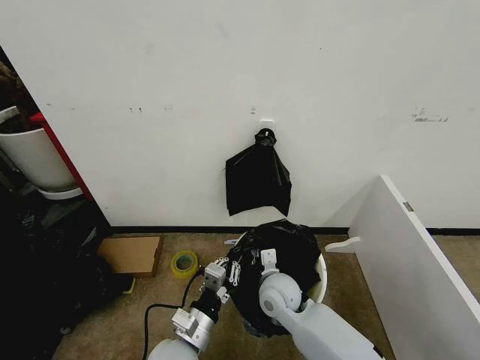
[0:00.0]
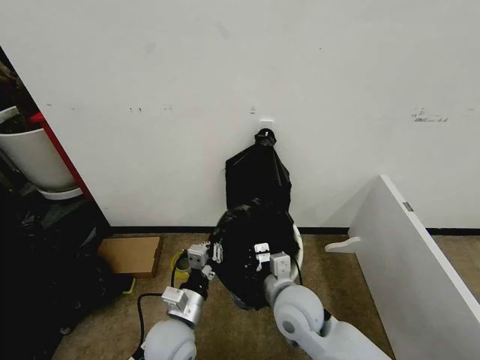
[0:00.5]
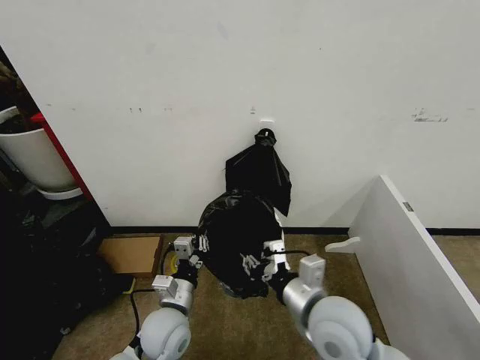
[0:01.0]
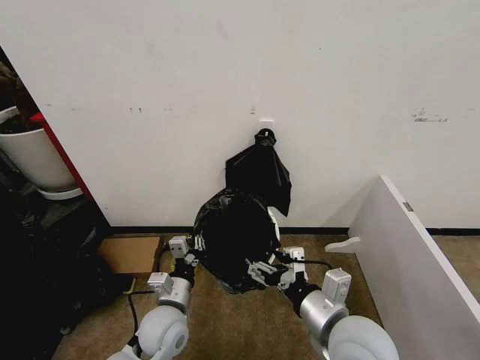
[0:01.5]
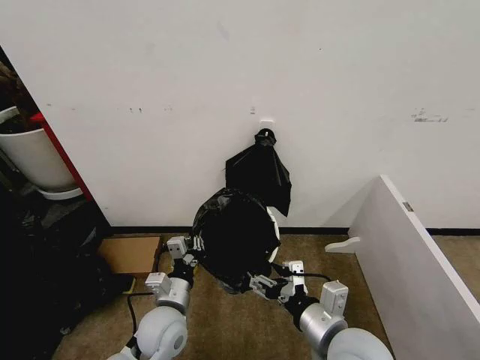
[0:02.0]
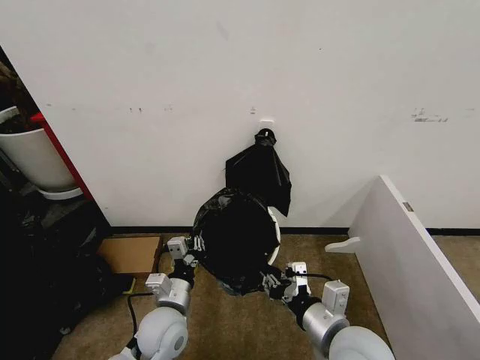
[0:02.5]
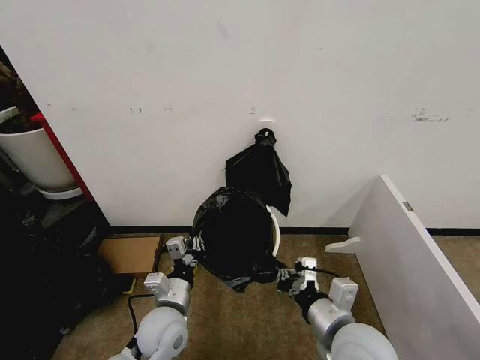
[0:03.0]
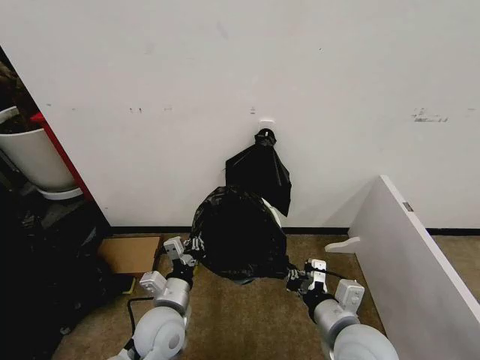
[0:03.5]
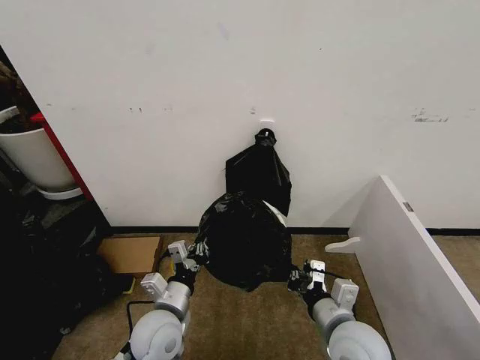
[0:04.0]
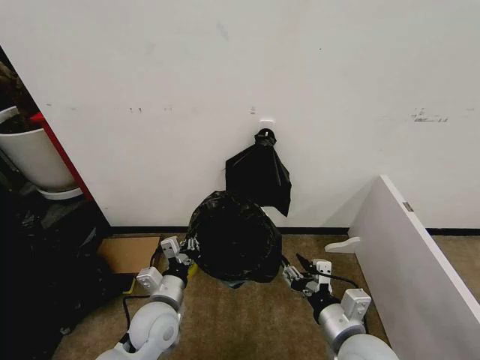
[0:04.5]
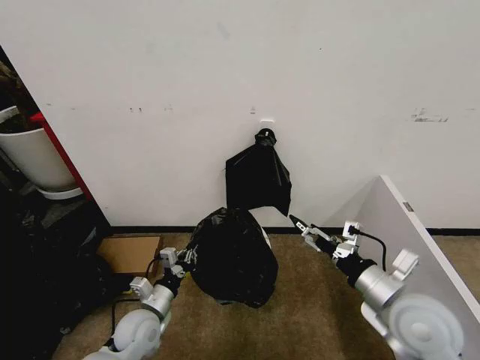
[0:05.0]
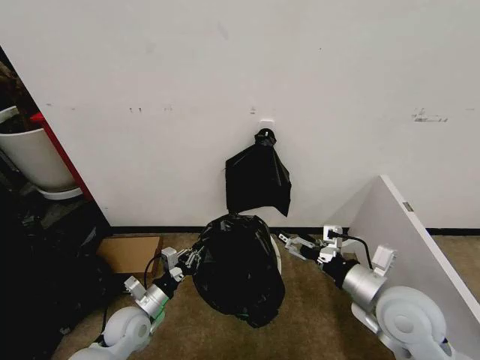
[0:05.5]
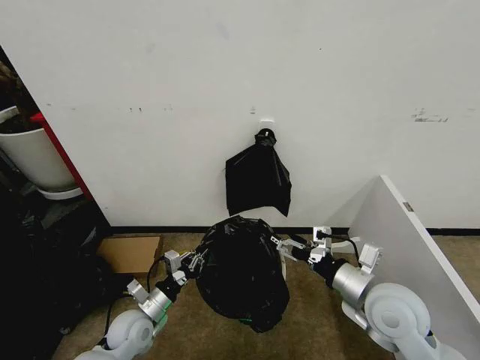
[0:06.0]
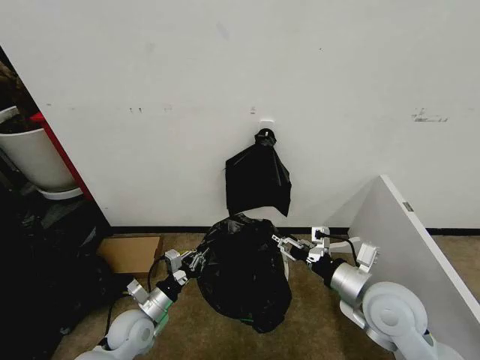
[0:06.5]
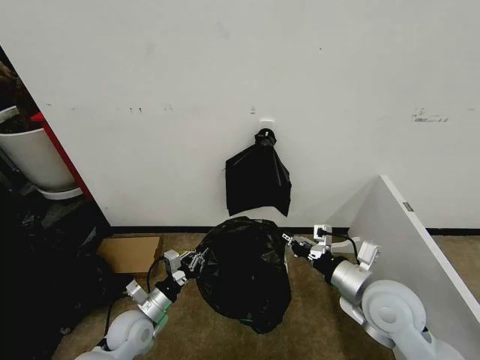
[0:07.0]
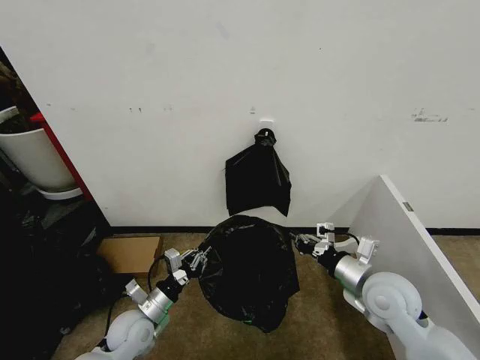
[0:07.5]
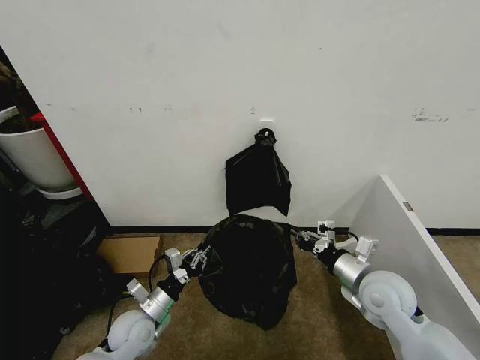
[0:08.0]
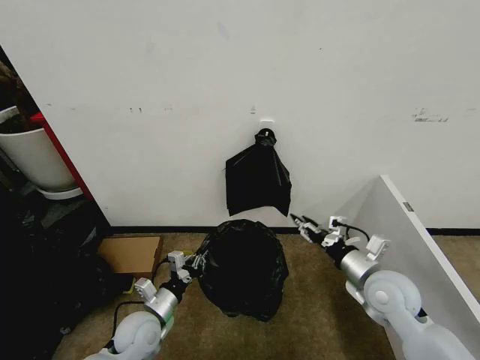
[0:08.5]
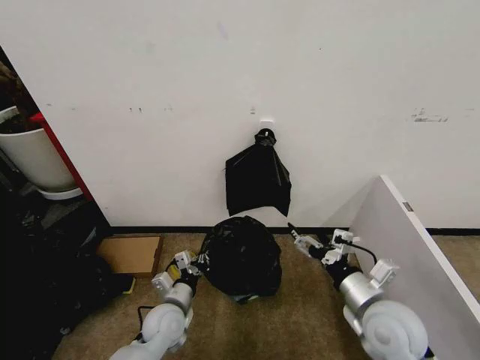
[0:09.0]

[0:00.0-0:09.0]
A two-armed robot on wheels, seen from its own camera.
Task of the whole recording: Place the garbage bag over the trash bin.
0:00.0 to 0:02.0: The left gripper goes roughly 5 cm forward; the right gripper heads backward, upward and to the right, covering some 20 cm, and opens.
0:02.0 to 0:04.5: The right gripper moves approximately 5 cm, and closes and opens again.
0:04.5 to 0:07.0: The right gripper goes some 10 cm forward and to the right, and closes its fingers. The left gripper is displaced to the left and downward by roughly 10 cm.
0:07.0 to 0:09.0: The left gripper shifts some 10 cm to the right; the right gripper opens its fingers.

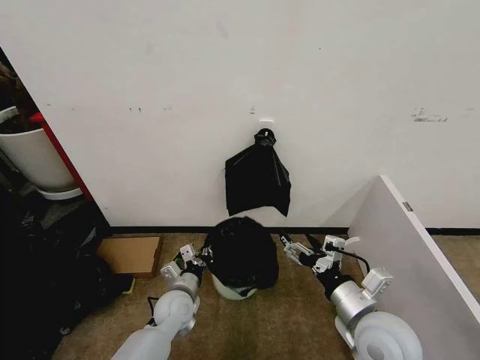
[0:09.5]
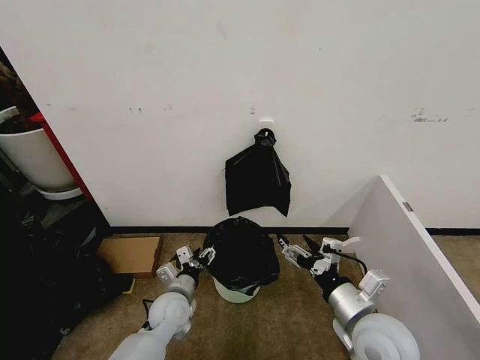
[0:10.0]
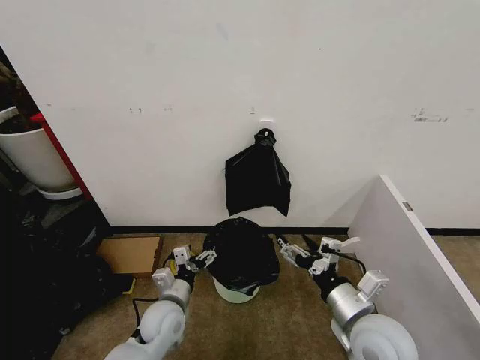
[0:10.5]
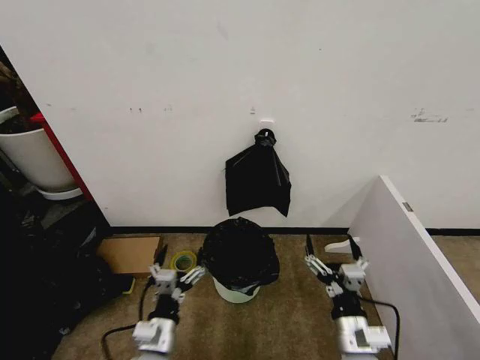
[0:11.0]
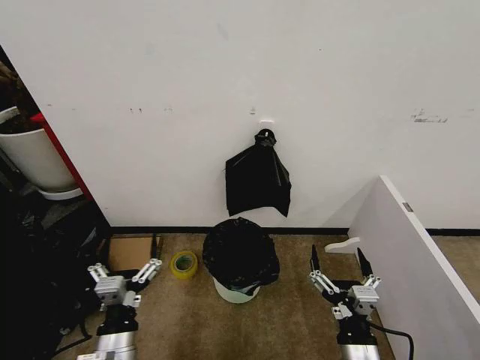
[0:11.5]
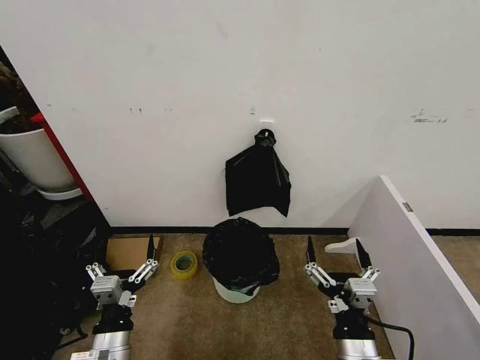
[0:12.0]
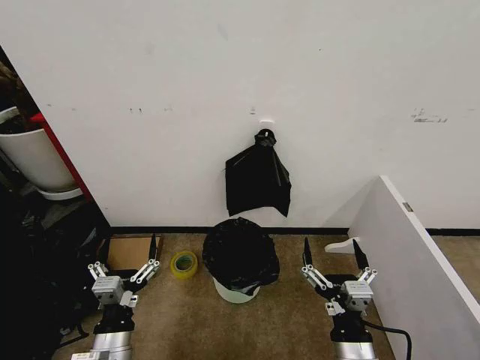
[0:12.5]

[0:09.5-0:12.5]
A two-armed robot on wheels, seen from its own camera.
Task of the whole recording: Place the garbage bag over the trash bin.
0:09.5 to 0:11.0: The right gripper goes about 10 cm downward, while the left gripper goes some 15 cm backward, and opens up.
0:11.0 to 0:12.5: The right gripper ends up some 5 cm from where it was. Meanwhile the left gripper goes about 5 cm to the left and upward.

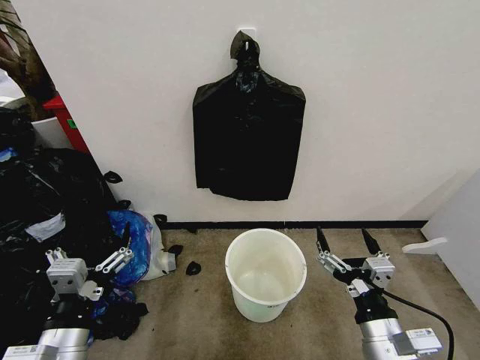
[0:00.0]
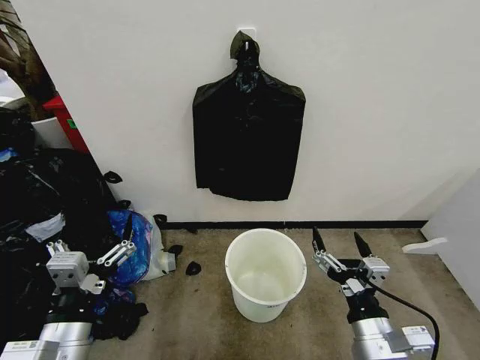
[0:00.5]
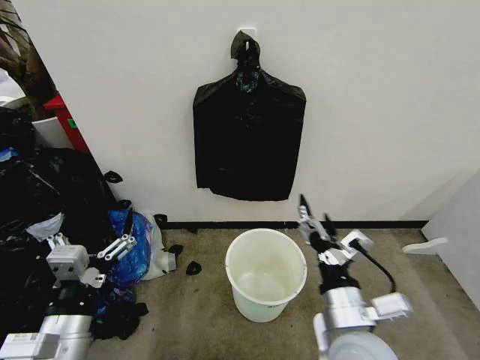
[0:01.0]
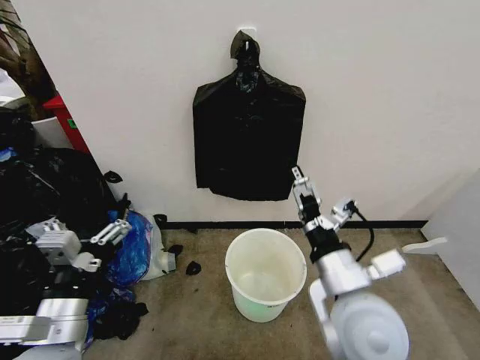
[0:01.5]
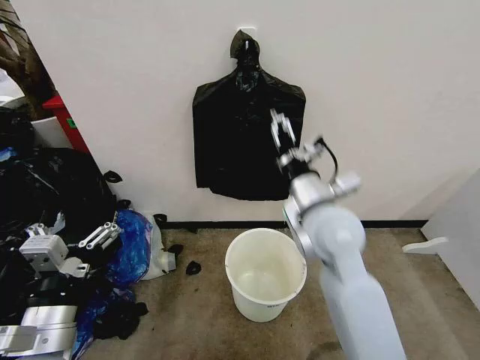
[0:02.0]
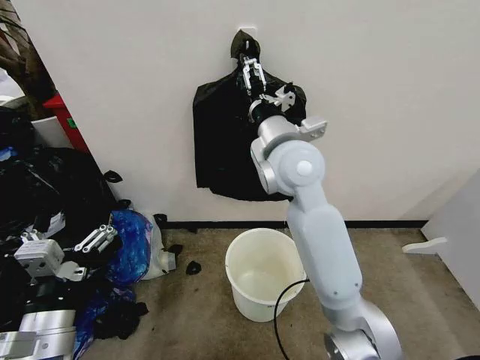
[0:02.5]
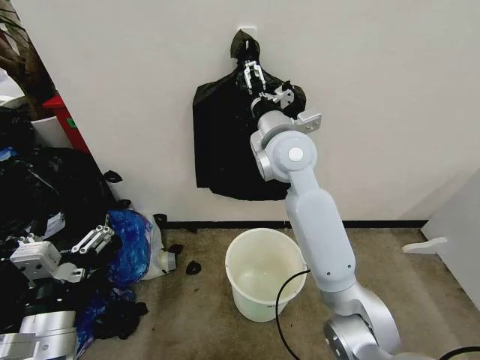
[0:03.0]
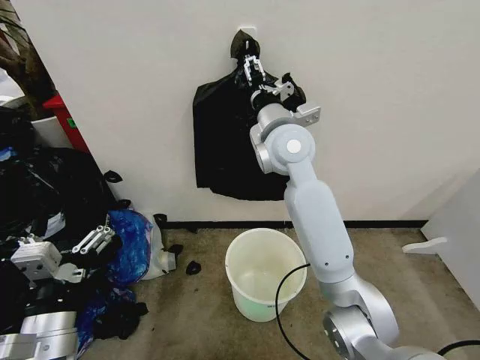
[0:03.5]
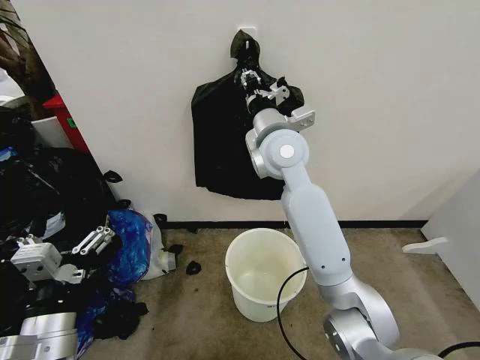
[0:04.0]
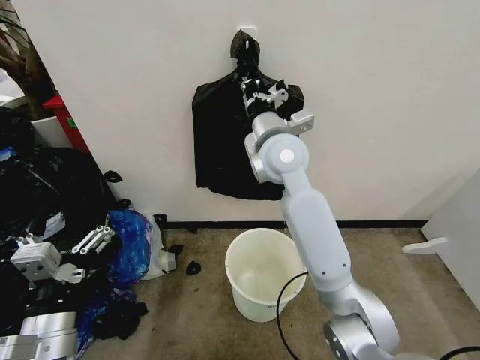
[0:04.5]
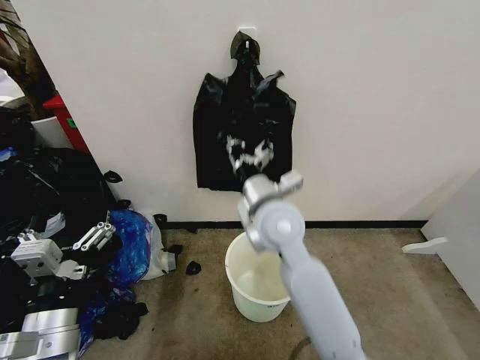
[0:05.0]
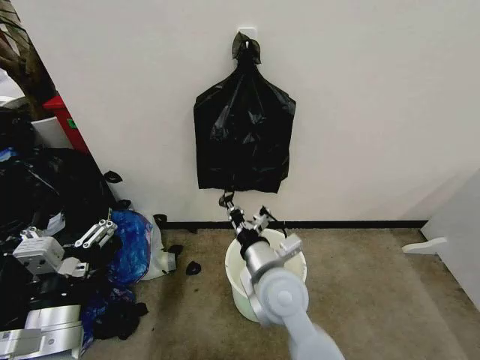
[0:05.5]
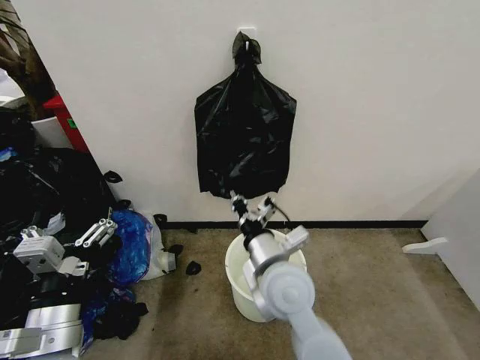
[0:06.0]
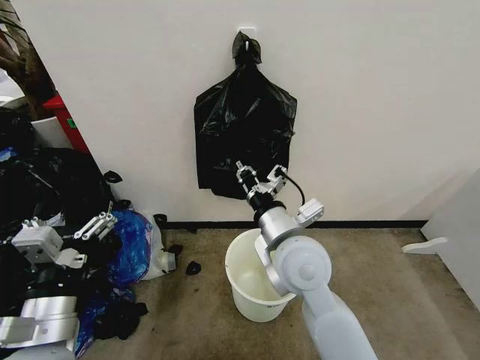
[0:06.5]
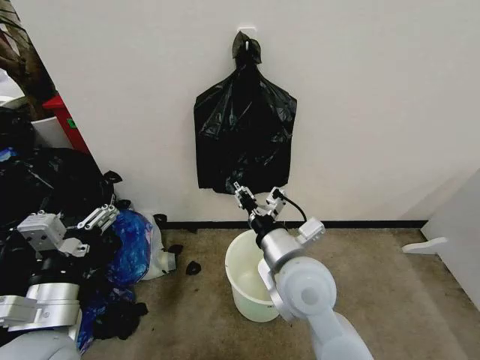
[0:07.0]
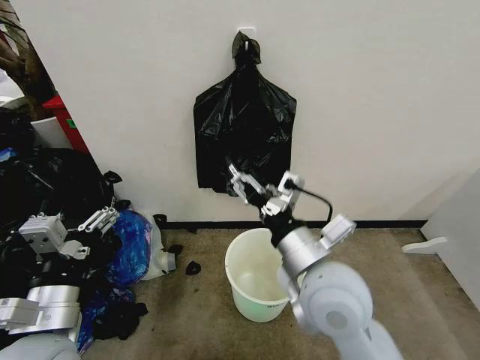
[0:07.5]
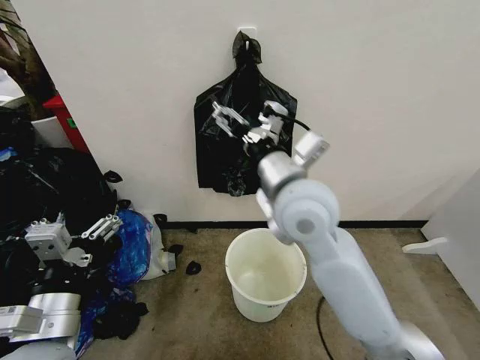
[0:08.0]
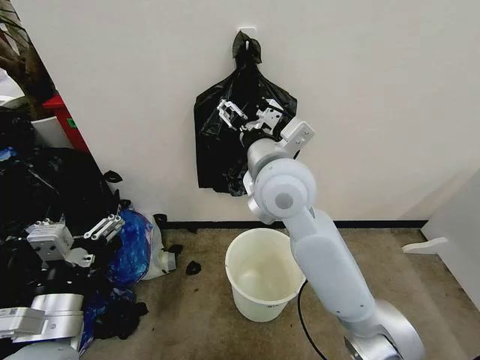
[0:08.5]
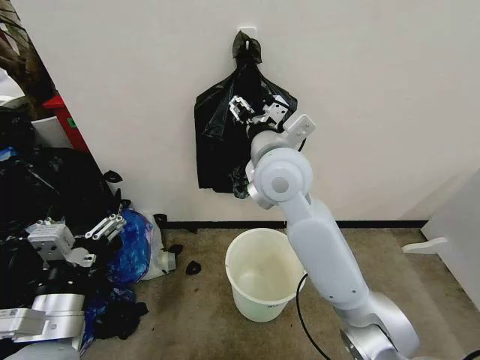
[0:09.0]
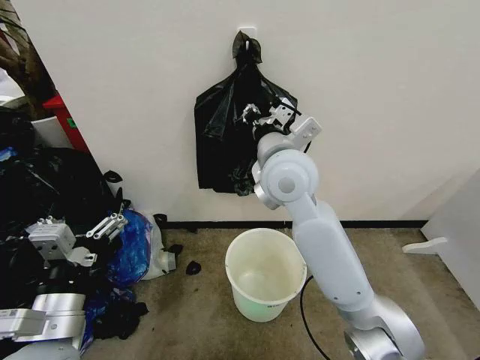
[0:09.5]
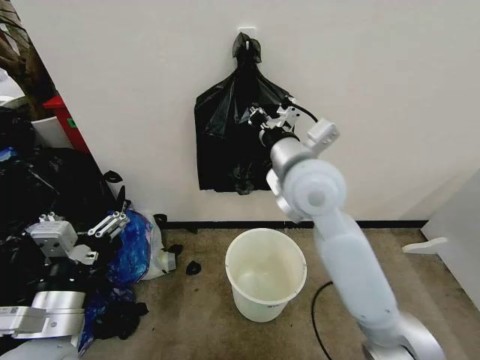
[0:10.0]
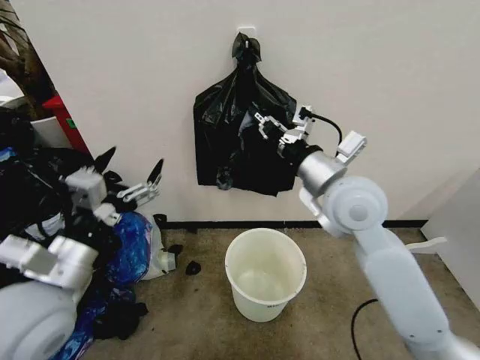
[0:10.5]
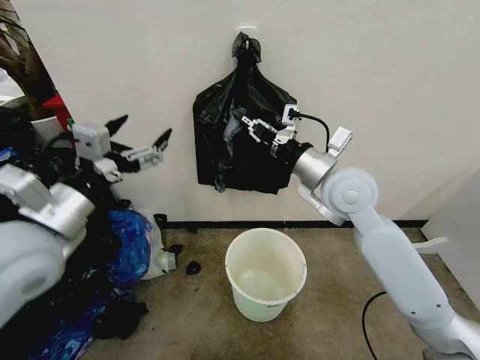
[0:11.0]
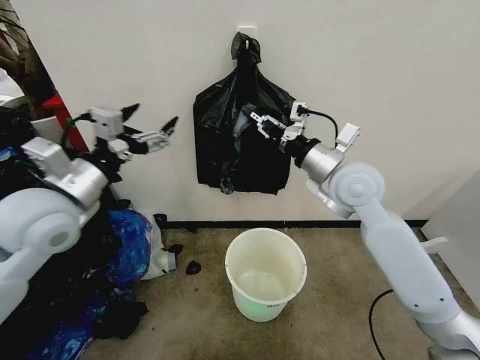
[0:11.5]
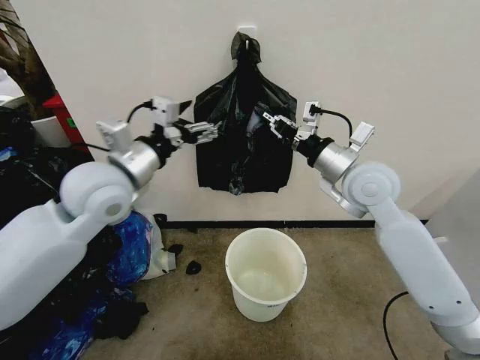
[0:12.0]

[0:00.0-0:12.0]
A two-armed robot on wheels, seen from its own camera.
Task of the whole recording: Place the garbage bag over the trash bin.
0:02.0 to 0:04.0: The right gripper goes approximately 15 cm forward and to the left, and closes its fingers.
0:04.0 to 0:06.0: The right gripper shifts approximately 25 cm backward and downward.
0:06.0 to 0:08.0: The right gripper moves upward and forward, some 15 cm, and opens.
0:08.0 to 0:10.0: The right gripper closes its fingers.
0:10.0 to 0:12.0: The right gripper heads to the right, covering some 10 cm; the left gripper moves forward and upward, about 25 cm.

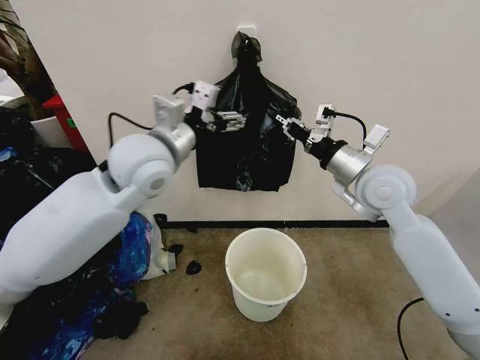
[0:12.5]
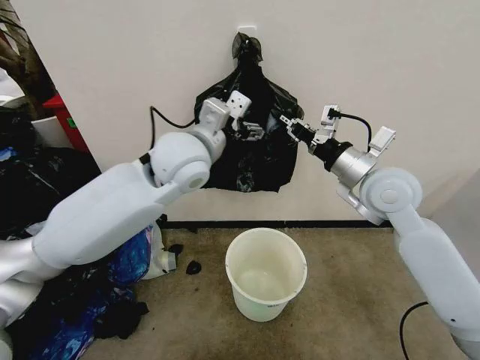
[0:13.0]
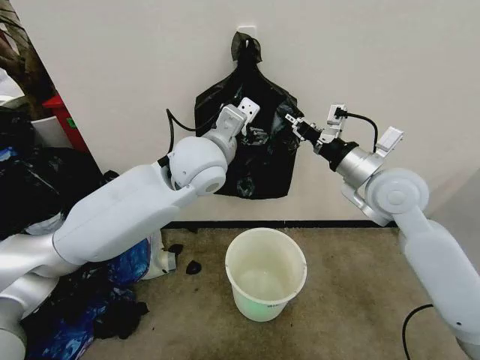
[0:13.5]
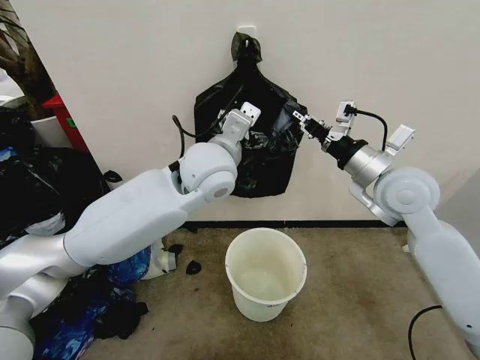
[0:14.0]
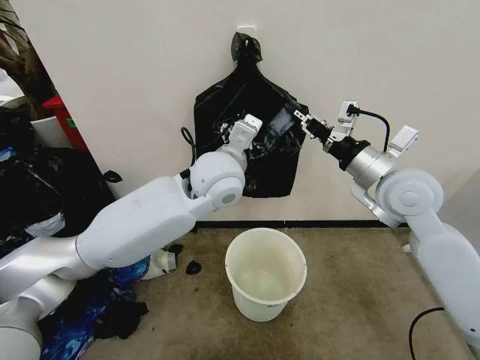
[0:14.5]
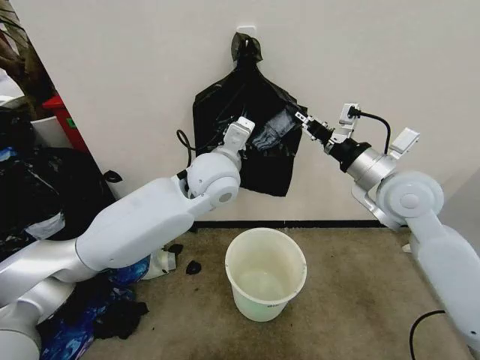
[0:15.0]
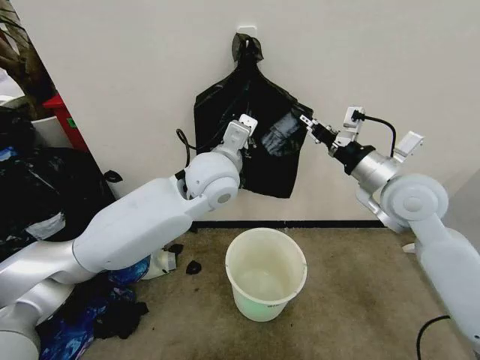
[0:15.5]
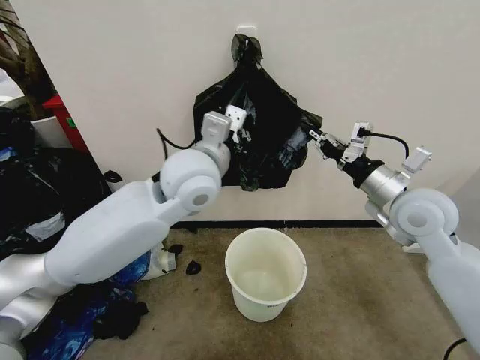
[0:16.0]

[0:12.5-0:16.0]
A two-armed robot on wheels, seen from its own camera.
Task of the whole recording: Place the garbage bag over the trash bin.
0:12.5 to 0:14.5: The left gripper goes roughly 10 cm to the right.
0:14.5 to 0:16.0: The left gripper changes place by approximately 5 cm, and closes.
